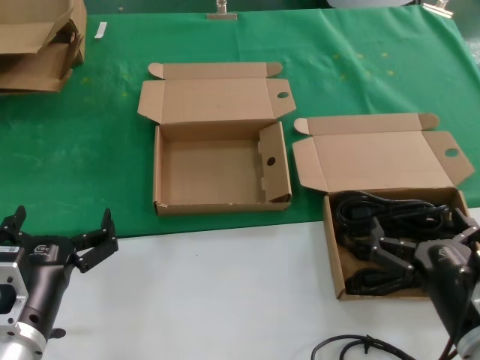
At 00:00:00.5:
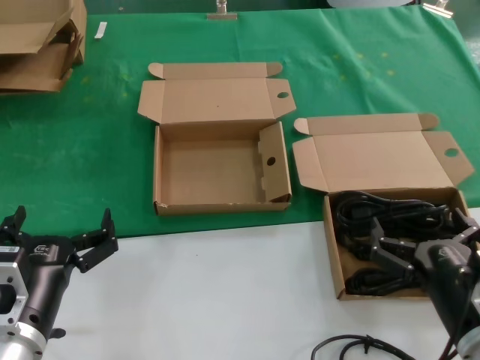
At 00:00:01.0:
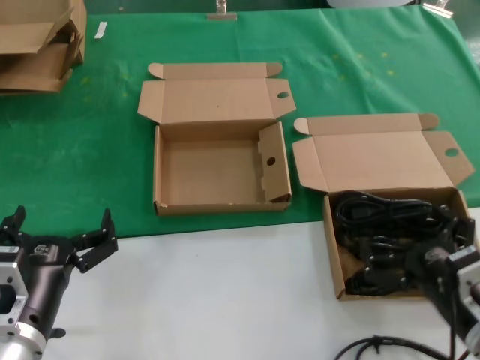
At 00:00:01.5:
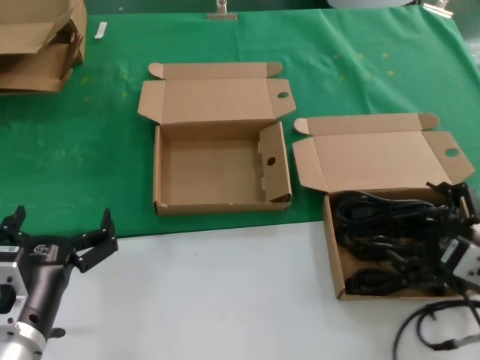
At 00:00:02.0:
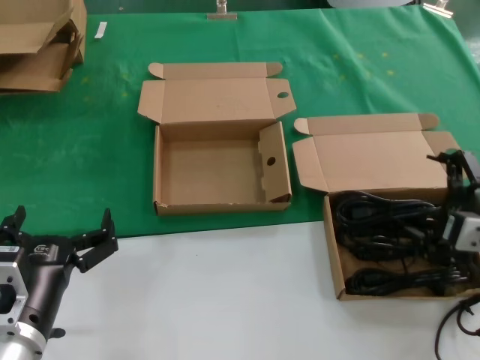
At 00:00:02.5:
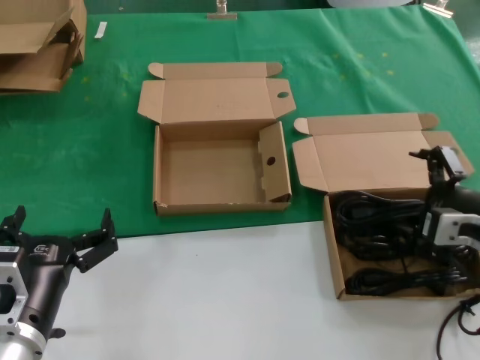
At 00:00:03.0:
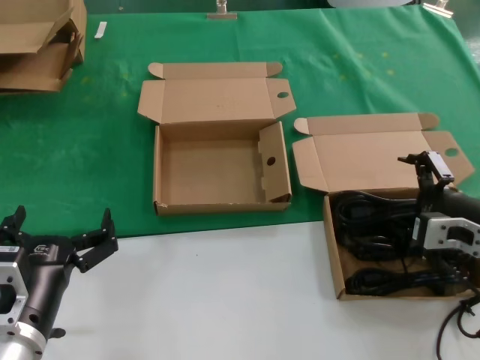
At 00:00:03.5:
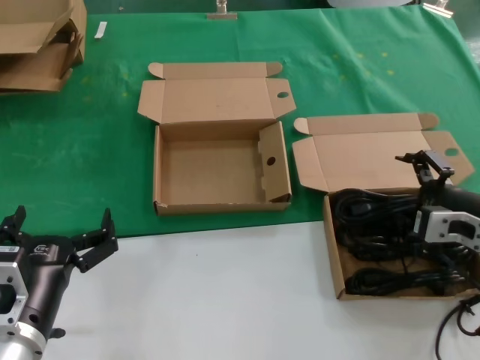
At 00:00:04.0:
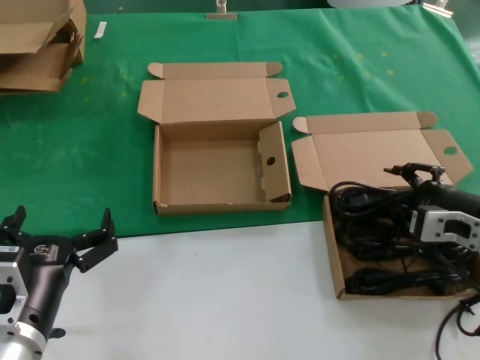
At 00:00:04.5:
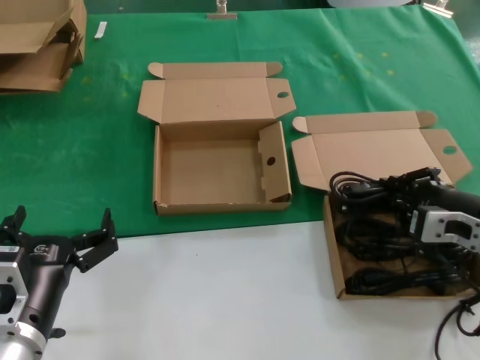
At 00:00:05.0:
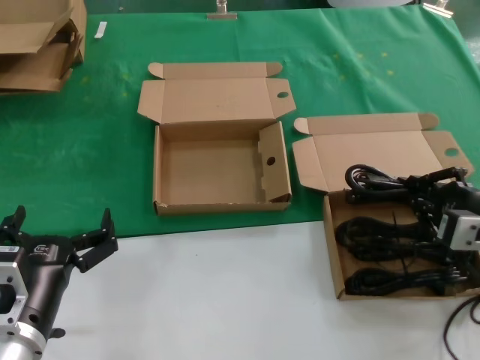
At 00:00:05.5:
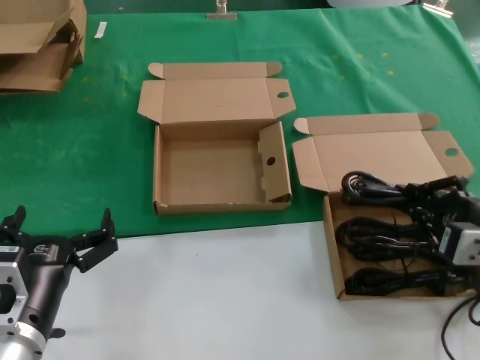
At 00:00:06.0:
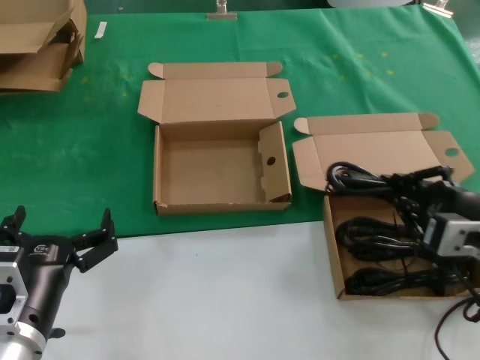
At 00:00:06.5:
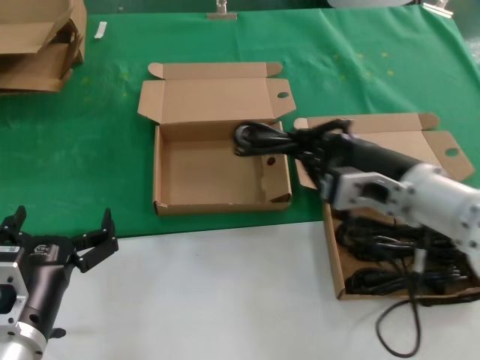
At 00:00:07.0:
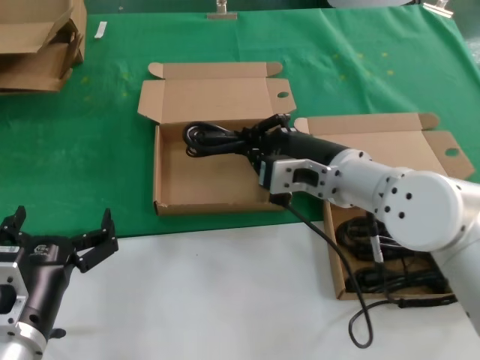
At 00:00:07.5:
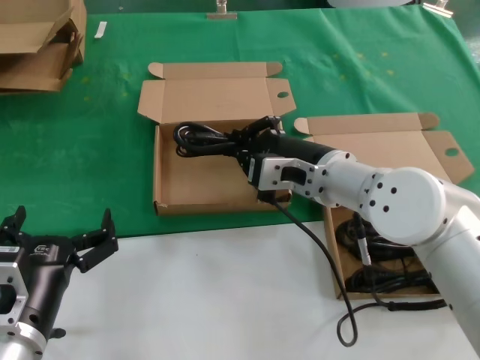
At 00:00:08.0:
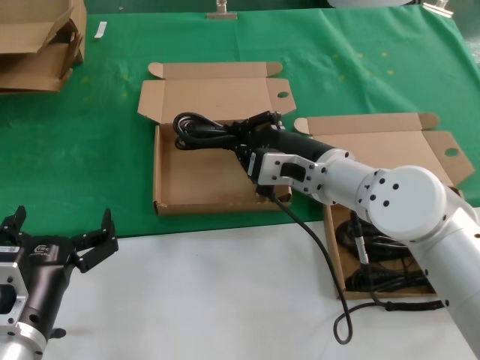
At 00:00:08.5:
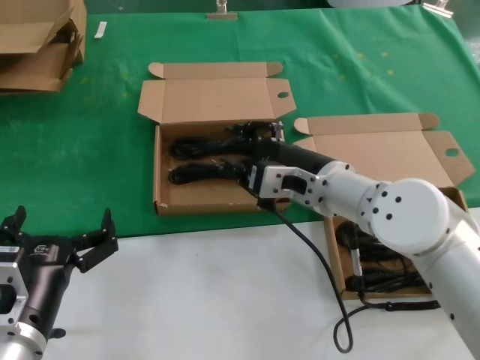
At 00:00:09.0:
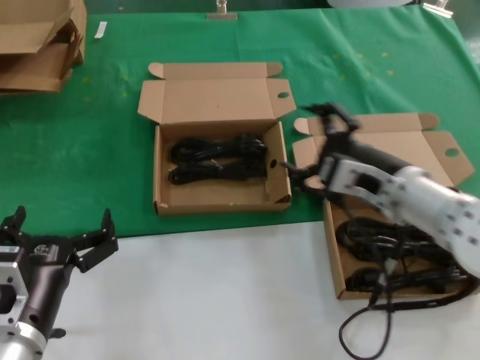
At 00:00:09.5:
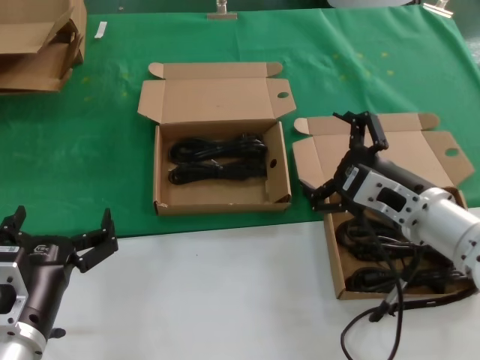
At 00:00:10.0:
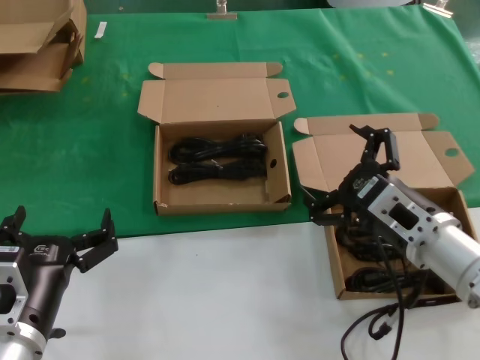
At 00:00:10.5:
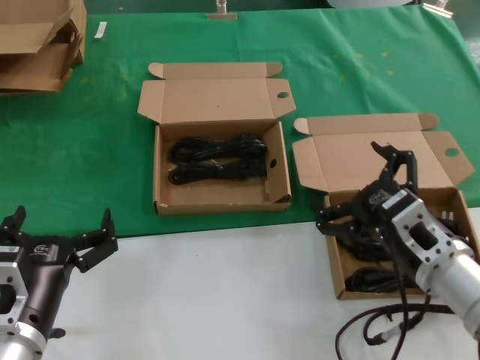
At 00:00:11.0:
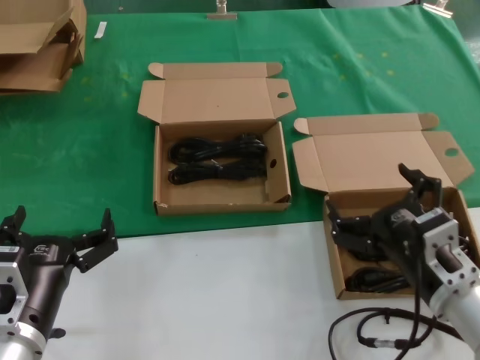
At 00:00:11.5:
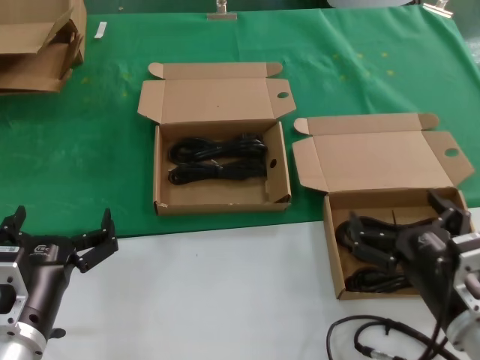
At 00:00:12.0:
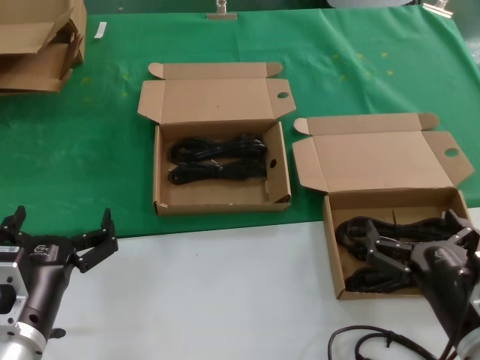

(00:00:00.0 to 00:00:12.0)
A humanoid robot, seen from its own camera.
Task of the whole recording: take the parts from the box containing them and put them into an empty box.
Step, 00:00:00.0 - 00:00:04.0: Grasp the data cable.
Step, 00:00:04.5 - 00:00:08.0: Place the data cable in the another box.
00:00:00.0 - 00:00:02.0: The right hand goes approximately 15 cm upward, to the right and forward.
00:00:02.0 - 00:00:04.0: The right hand is displaced forward by roughly 5 cm.
00:00:04.0 - 00:00:06.0: The right hand goes roughly 5 cm backward.
00:00:06.0 - 00:00:08.0: The right hand moves to the left and forward, about 20 cm.
00:00:08.0 - 00:00:10.0: The right hand travels to the right and backward by approximately 15 cm.
00:00:10.0 - 00:00:12.0: The right hand moves backward and downward, roughly 15 cm.

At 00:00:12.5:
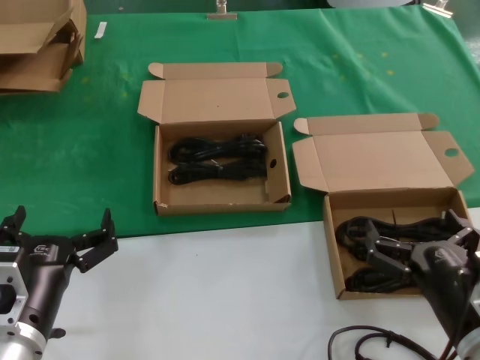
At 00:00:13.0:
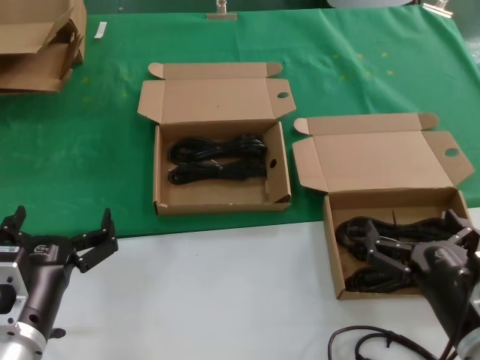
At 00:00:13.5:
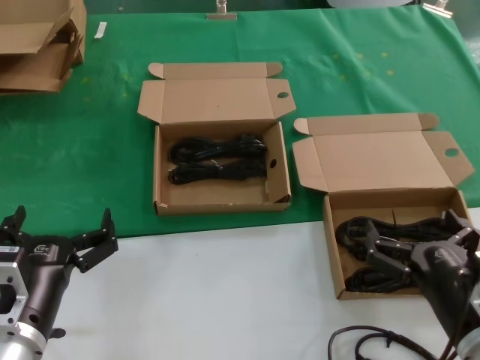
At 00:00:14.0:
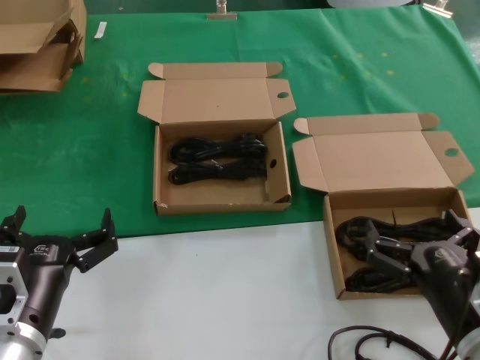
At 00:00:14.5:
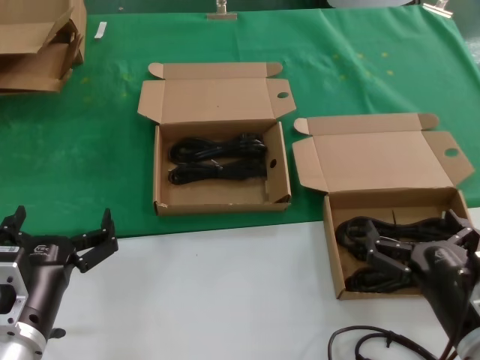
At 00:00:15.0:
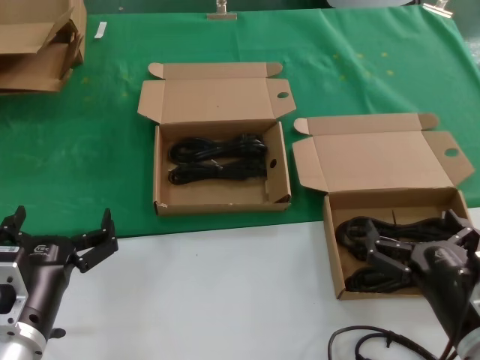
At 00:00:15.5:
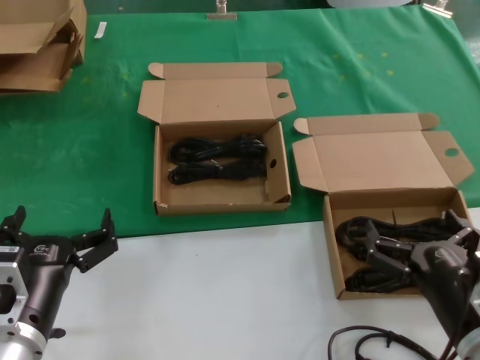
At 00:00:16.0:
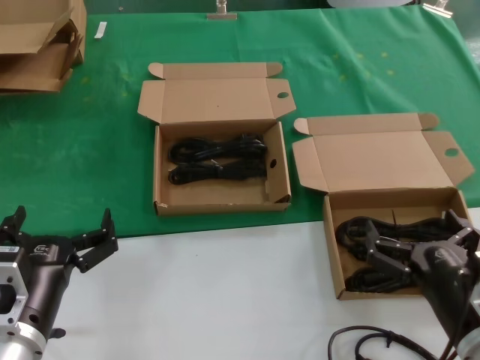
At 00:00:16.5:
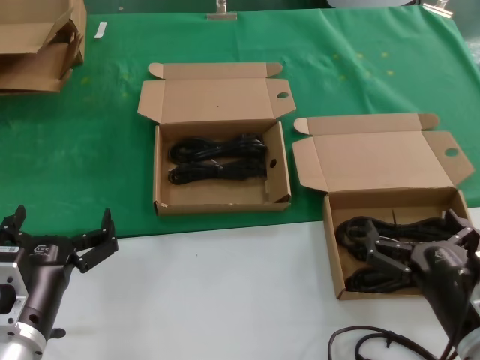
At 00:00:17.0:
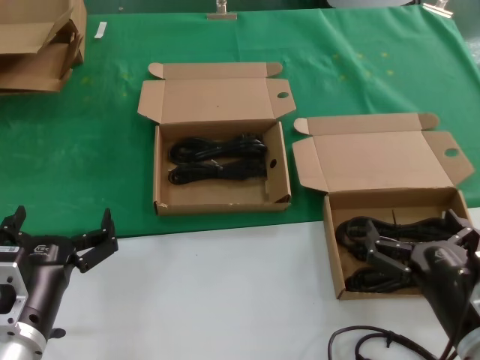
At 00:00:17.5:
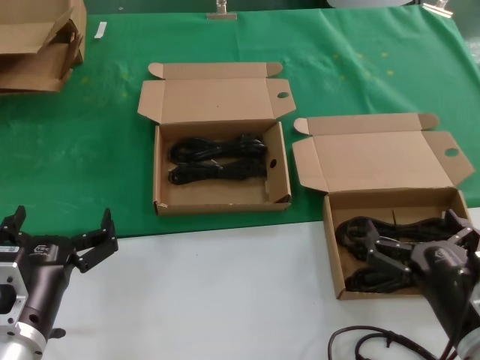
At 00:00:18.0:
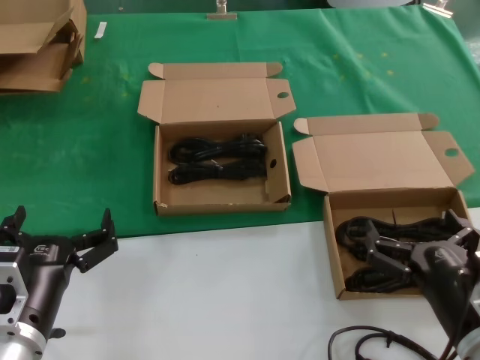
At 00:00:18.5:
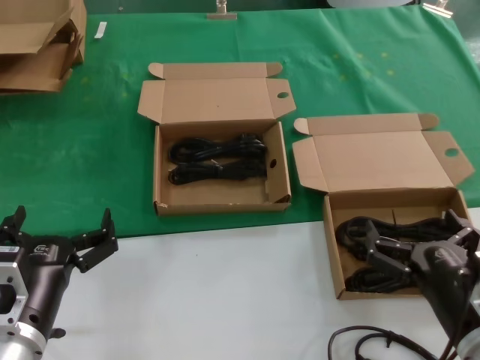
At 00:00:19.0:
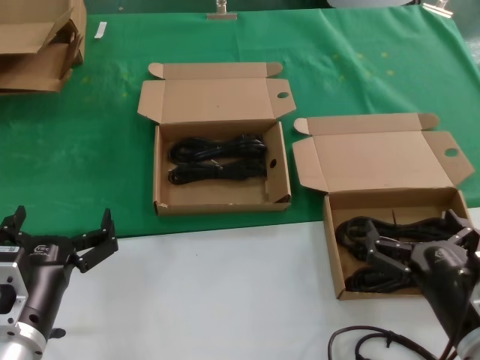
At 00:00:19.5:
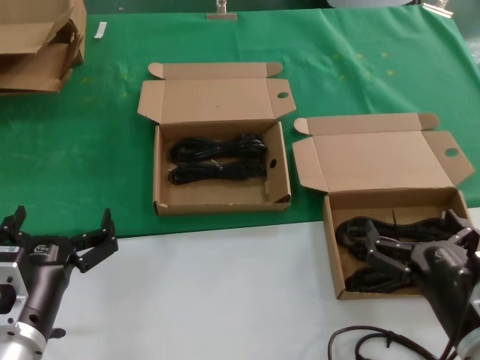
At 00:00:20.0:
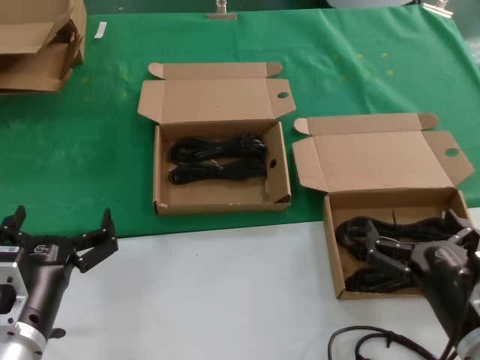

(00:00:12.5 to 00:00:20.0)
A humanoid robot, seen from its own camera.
Task of the whole recording: take the parts from the box containing them and put them into an empty box.
00:00:12.5 - 00:00:20.0: The two hands keep their place.
